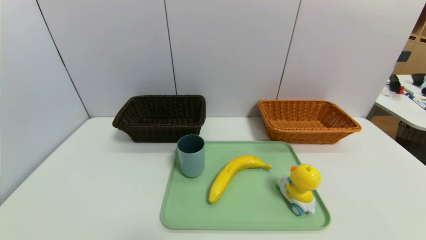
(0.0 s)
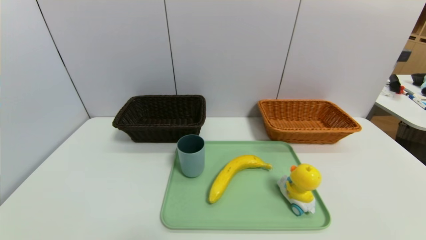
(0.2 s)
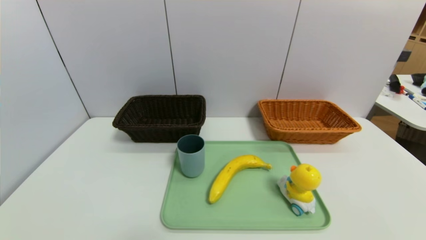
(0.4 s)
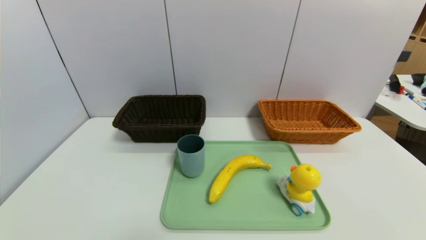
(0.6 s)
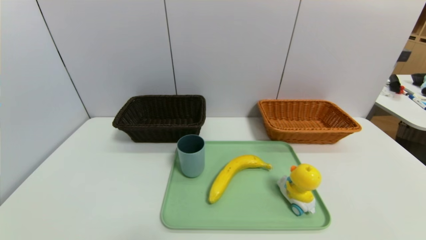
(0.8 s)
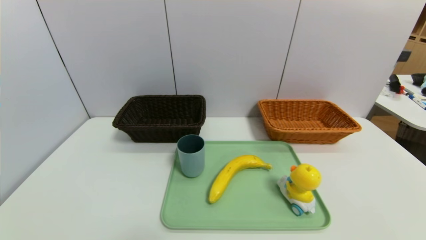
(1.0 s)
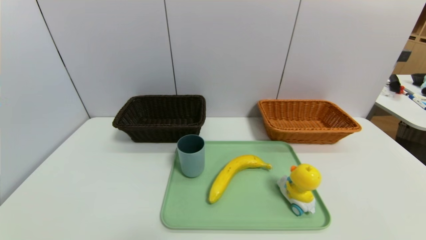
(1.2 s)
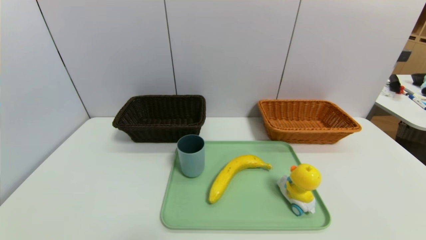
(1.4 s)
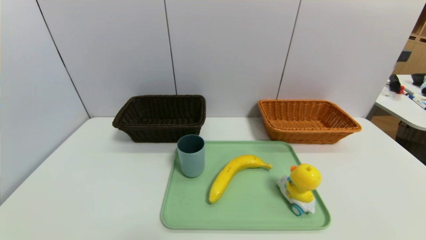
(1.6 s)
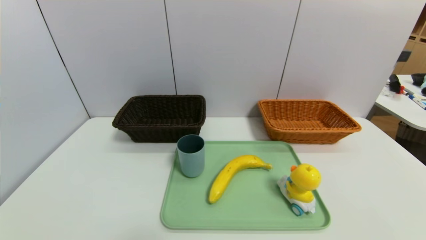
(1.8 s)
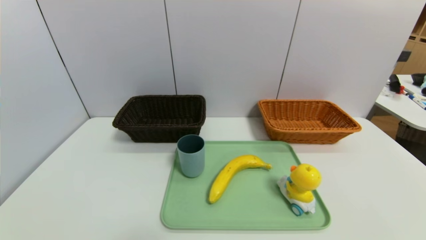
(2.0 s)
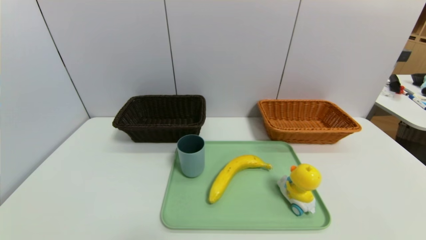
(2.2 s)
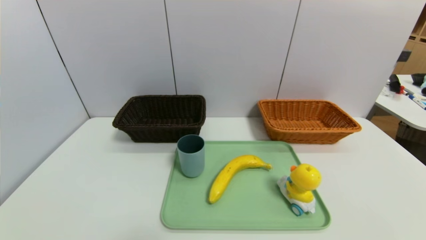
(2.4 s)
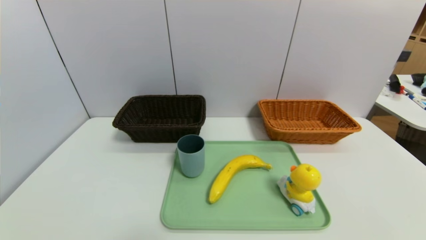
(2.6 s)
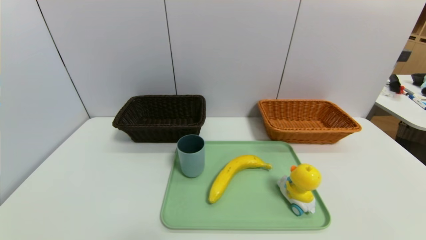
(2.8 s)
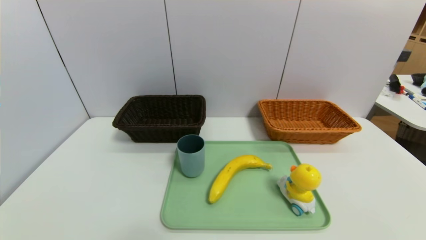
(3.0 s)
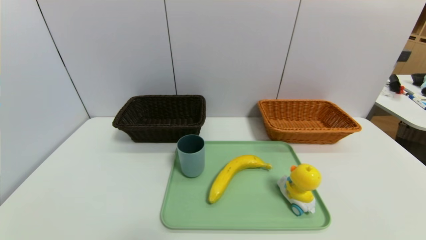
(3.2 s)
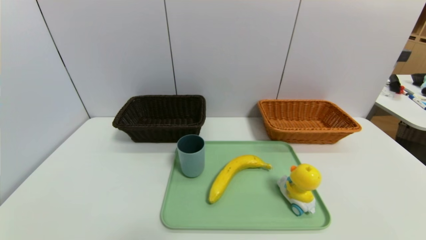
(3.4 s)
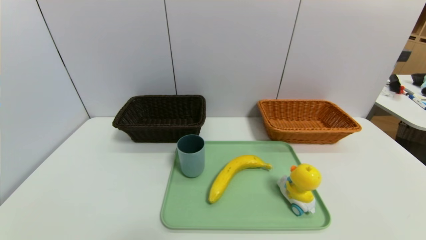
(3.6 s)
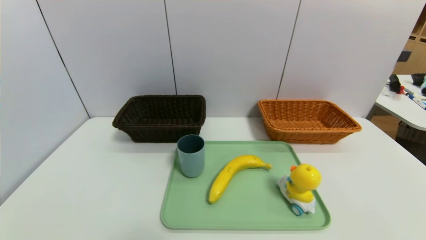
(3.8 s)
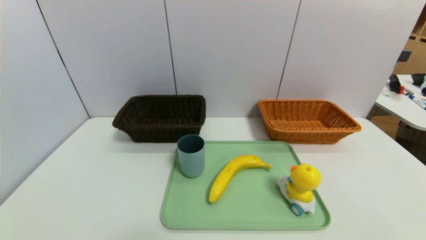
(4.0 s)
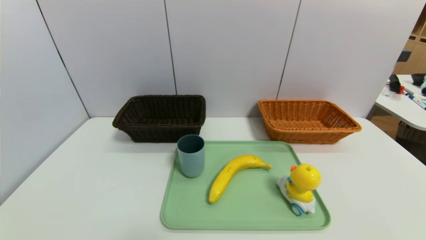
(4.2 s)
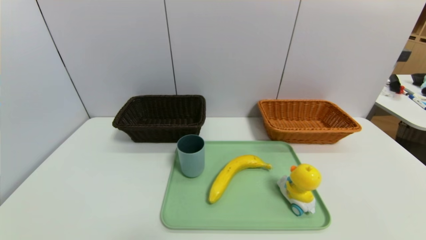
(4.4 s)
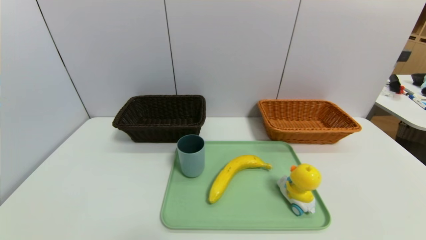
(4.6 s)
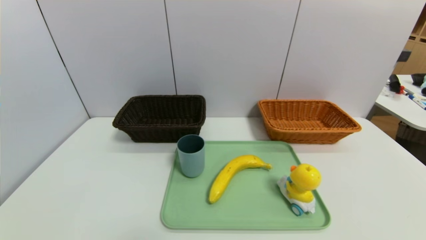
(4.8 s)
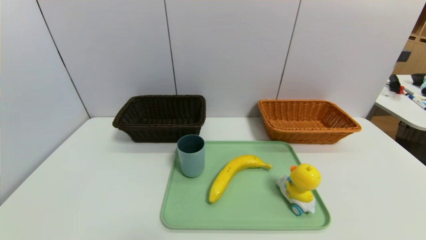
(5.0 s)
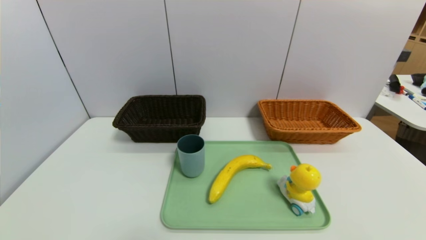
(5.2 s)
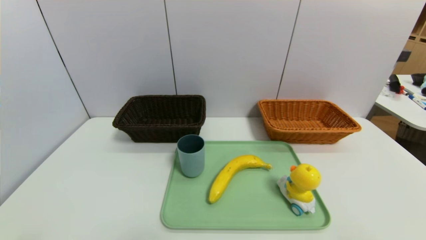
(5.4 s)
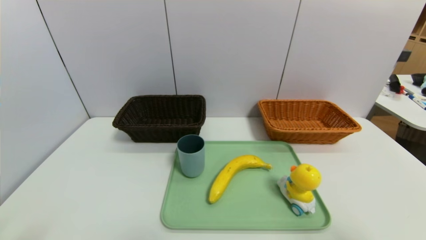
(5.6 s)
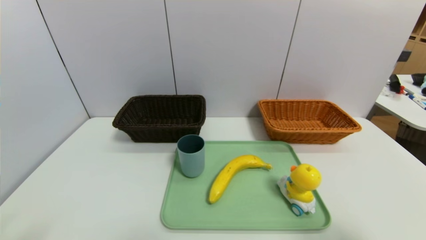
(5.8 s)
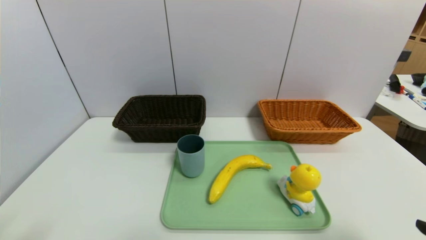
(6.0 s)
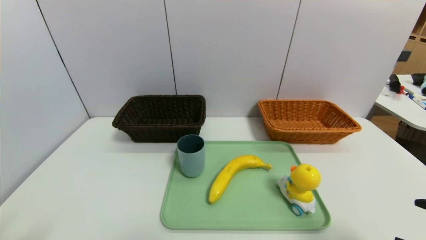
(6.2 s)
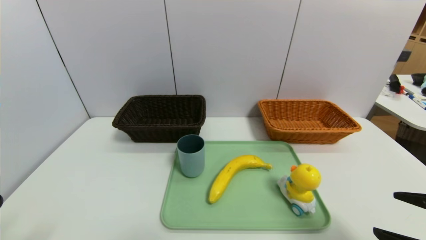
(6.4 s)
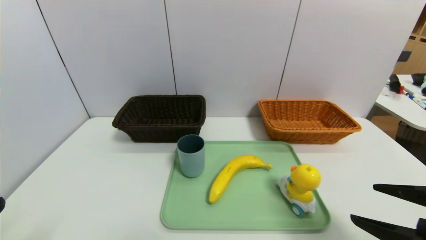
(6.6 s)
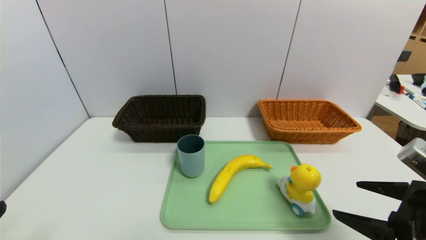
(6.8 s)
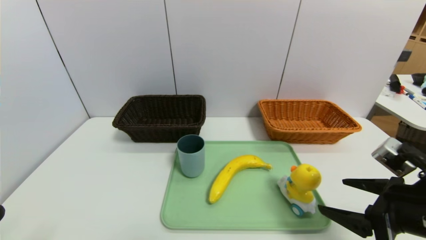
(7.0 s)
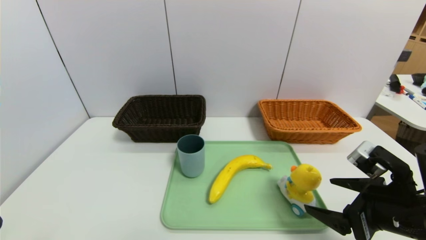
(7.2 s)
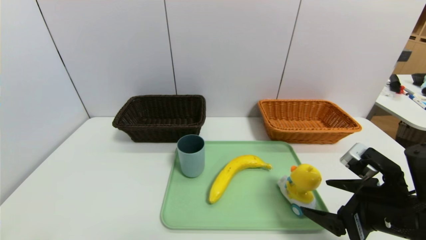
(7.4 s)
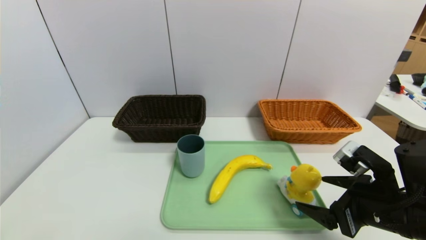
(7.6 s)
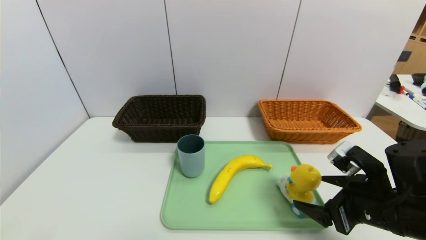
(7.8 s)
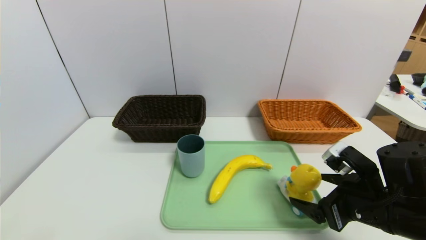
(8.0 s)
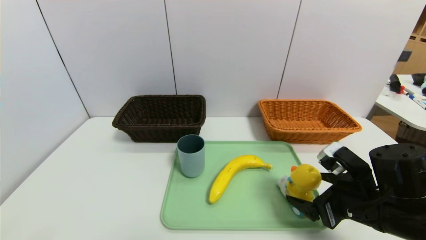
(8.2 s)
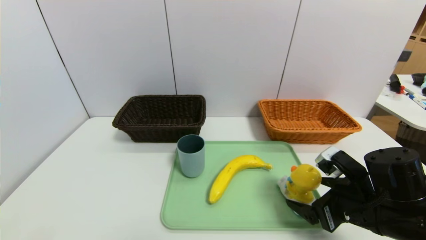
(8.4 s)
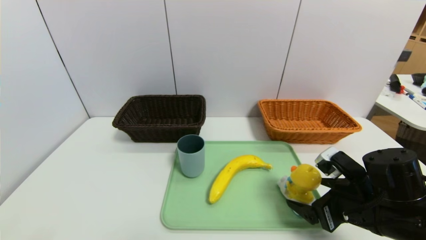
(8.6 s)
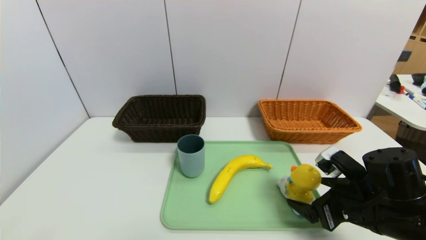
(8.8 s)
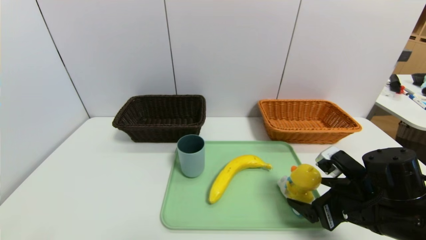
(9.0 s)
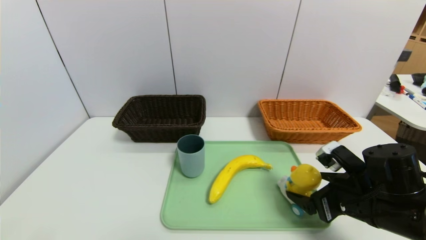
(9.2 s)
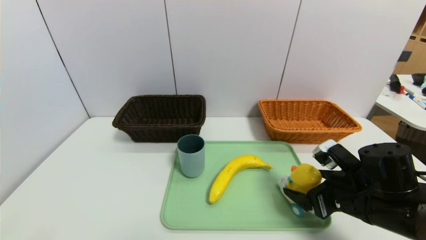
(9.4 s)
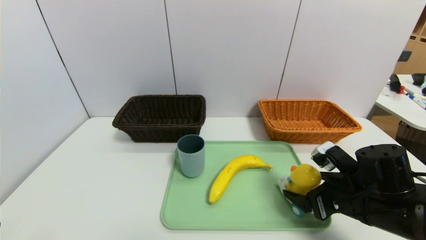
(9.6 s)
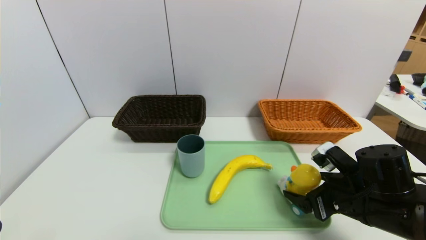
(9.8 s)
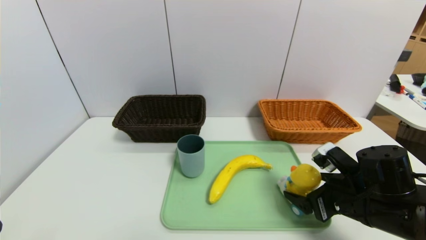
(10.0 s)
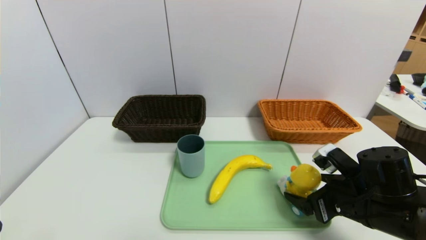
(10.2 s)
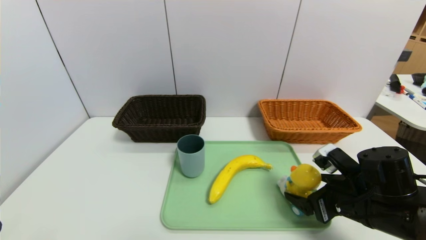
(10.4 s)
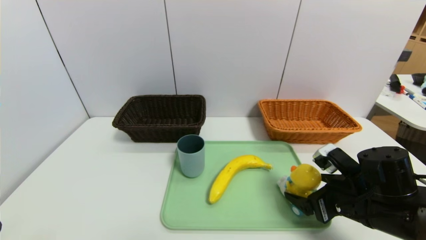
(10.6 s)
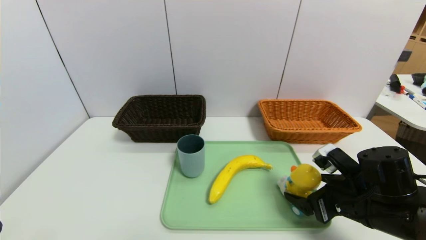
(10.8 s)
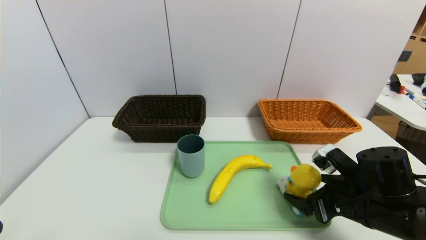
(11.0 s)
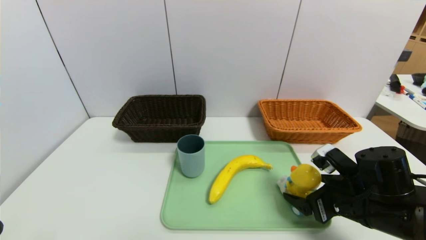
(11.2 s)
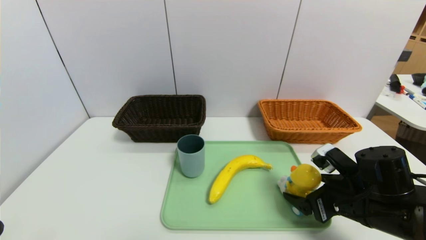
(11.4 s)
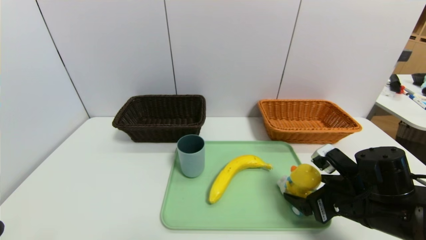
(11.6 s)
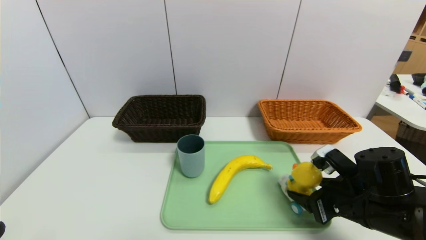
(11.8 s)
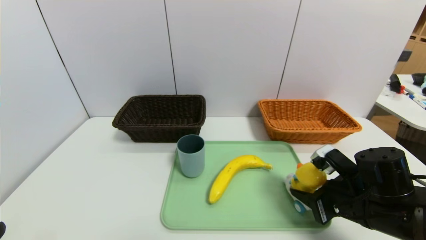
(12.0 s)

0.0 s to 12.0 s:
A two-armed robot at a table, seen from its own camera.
Task of the whole recording: place the food in the right basket with the right gripper, and place the non food items in the left basket with the left gripper.
0.0 to 3.0 s: Both grippers stay put.
4.4 to 6.0 s: The right gripper goes about 15 cm upward and forward.
6.0 to 7.6 s: The right gripper is displaced forward, to the left and downward by roughly 15 cm.
7.6 to 9.0 s: The grippers move only a little.
9.0 to 10.4 s: Both grippers stay put.
10.4 to 12.0 s: The right gripper closes its fingers.

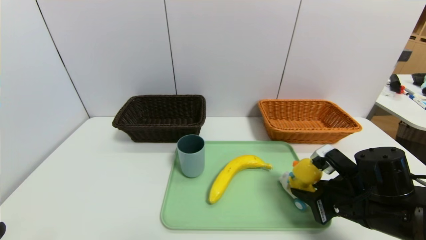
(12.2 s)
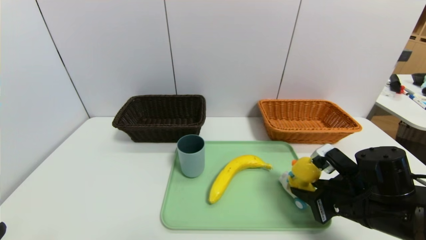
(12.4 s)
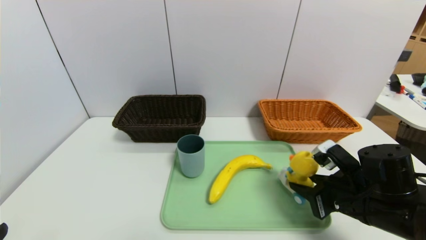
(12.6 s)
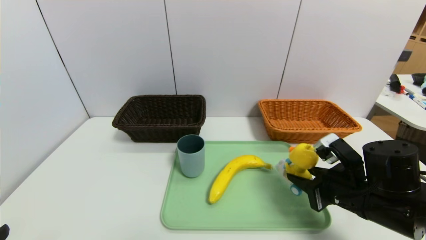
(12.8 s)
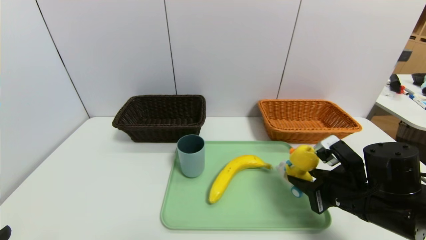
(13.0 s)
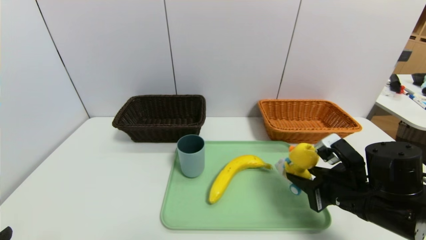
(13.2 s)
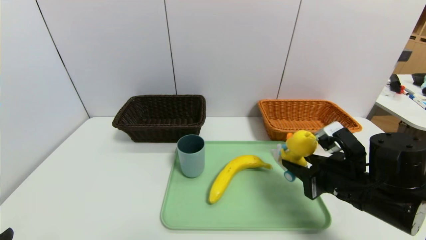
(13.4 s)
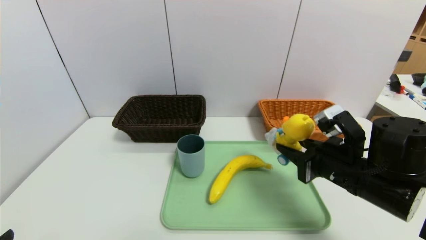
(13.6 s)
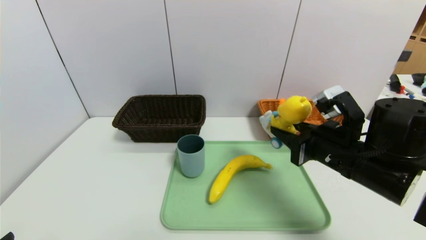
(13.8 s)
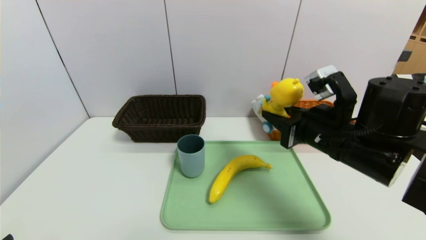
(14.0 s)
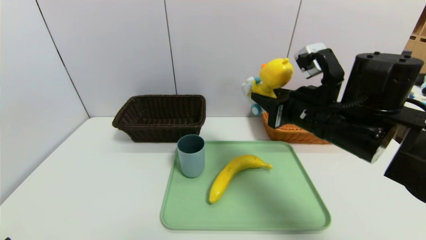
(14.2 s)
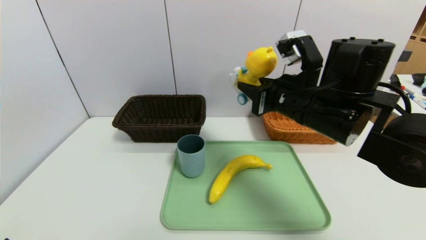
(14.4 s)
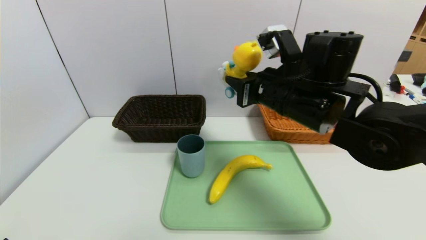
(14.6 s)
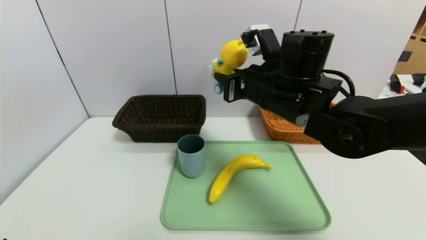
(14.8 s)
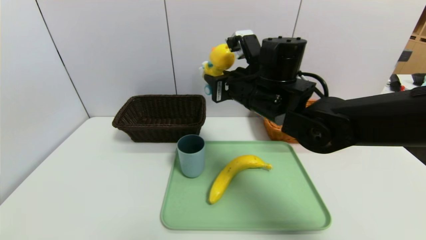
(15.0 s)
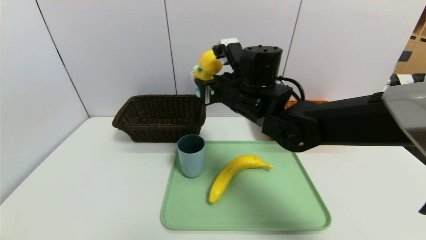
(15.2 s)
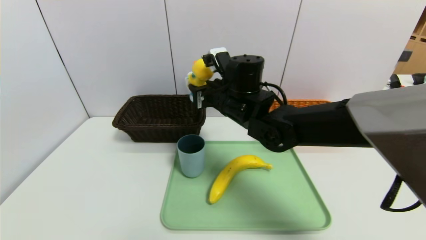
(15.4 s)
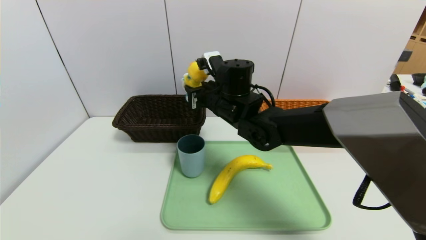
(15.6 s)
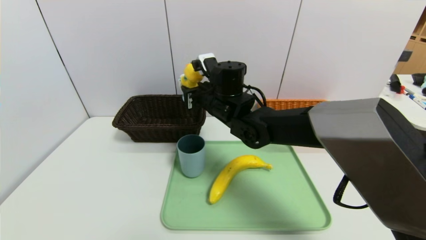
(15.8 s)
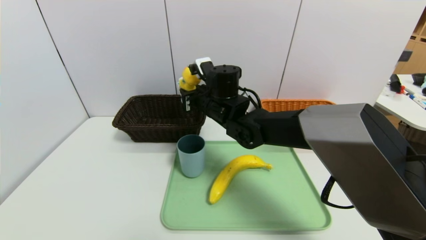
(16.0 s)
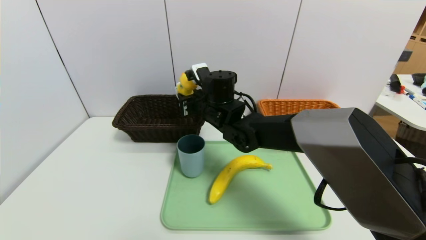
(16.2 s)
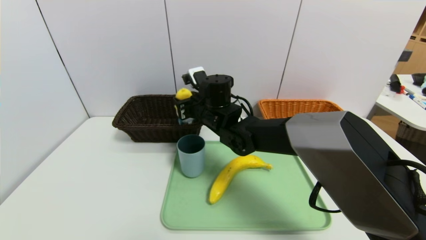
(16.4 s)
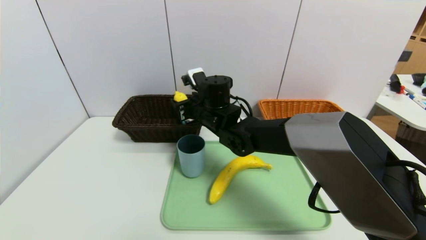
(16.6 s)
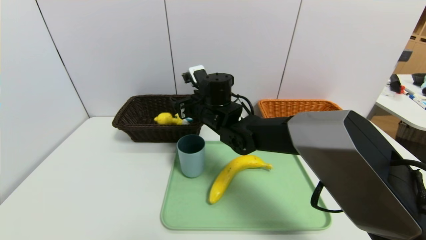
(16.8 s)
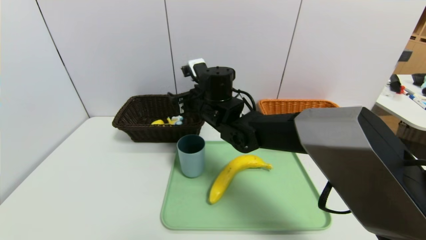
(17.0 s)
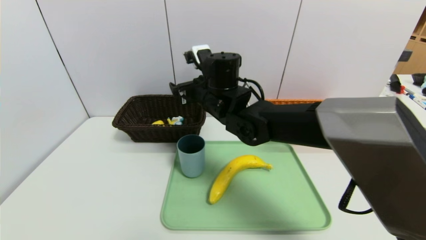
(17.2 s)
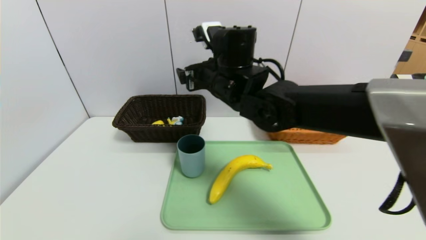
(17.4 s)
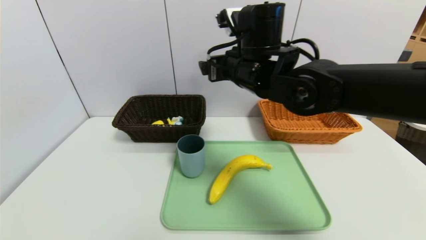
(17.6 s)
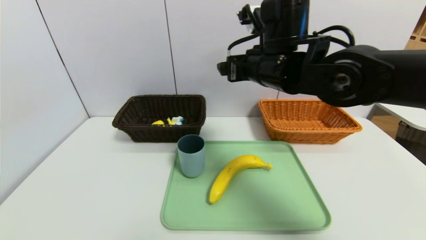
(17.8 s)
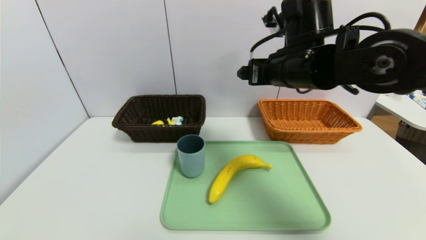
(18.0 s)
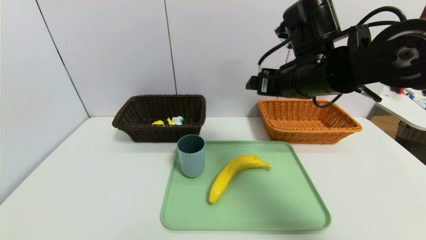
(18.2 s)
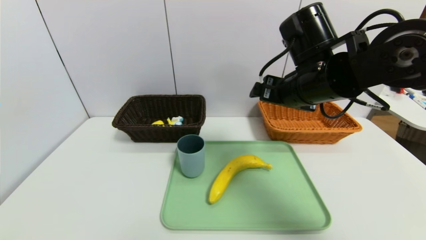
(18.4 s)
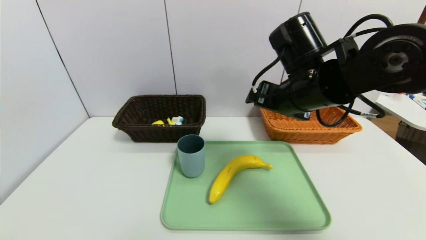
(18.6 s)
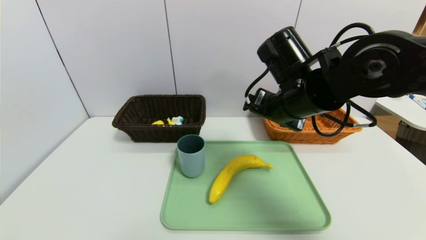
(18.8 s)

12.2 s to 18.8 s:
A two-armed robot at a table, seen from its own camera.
Task of the whole recording: place the food in the right basket with the right gripper, and place the non food items in the left basket with the left gripper.
12.2 to 13.8 s: The right gripper travels upward by some 10 cm.
13.8 to 15.4 s: The right gripper is displaced to the left and forward by approximately 20 cm.
15.4 to 17.2 s: The right gripper opens up.
17.2 to 18.8 s: The right gripper heads to the right and backward, covering roughly 15 cm.
